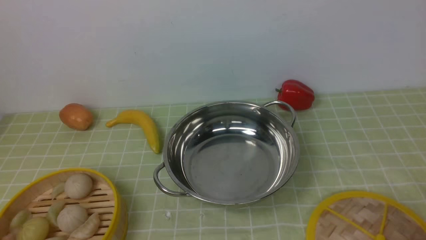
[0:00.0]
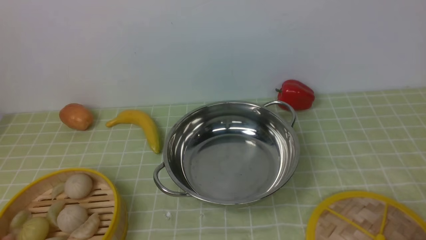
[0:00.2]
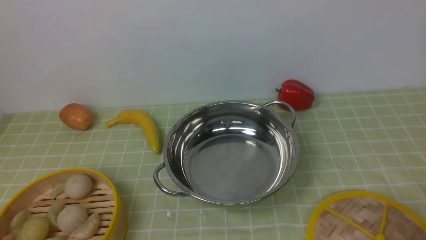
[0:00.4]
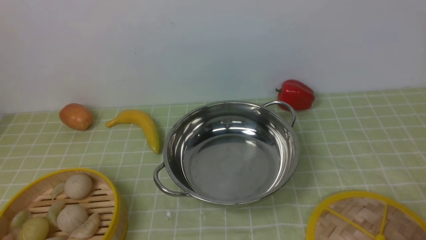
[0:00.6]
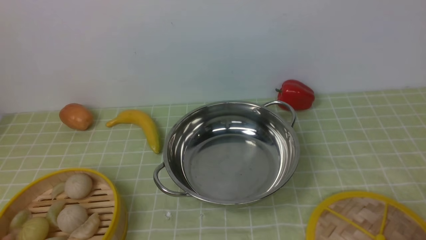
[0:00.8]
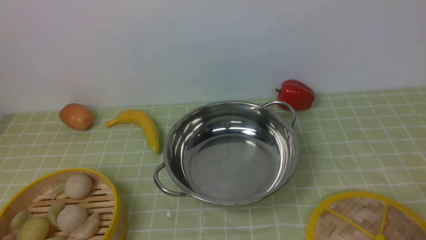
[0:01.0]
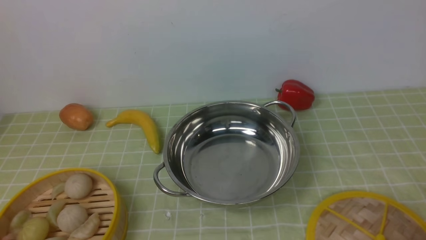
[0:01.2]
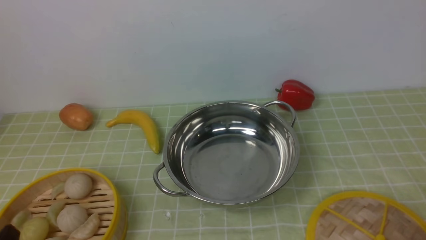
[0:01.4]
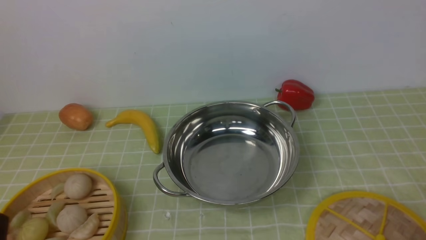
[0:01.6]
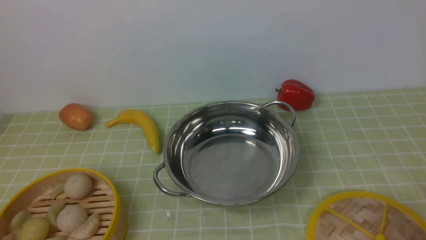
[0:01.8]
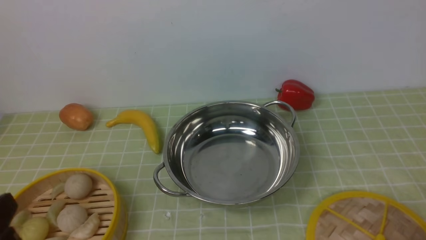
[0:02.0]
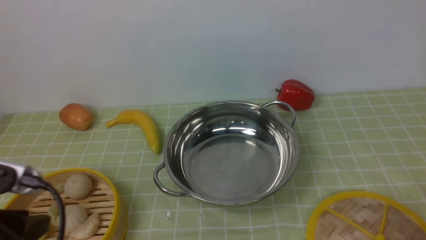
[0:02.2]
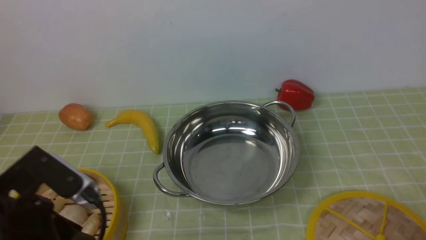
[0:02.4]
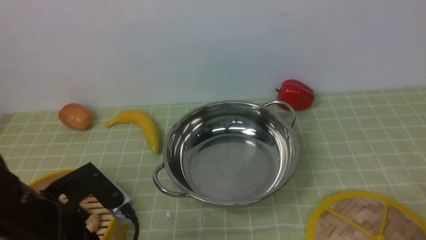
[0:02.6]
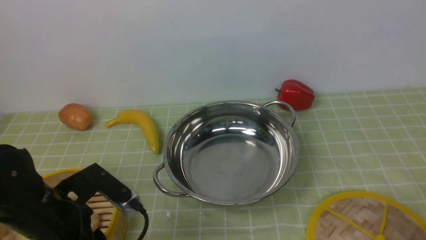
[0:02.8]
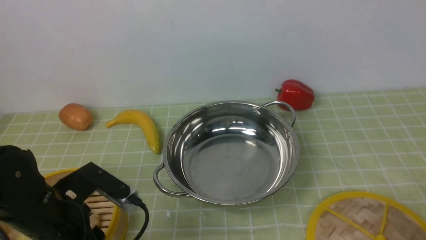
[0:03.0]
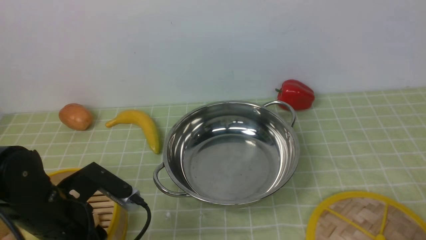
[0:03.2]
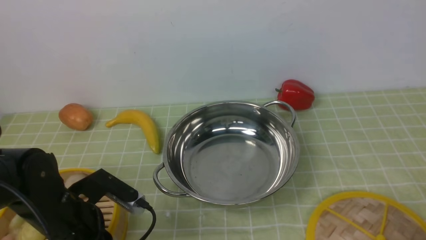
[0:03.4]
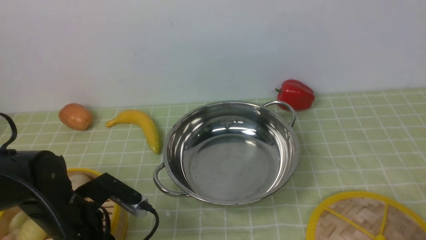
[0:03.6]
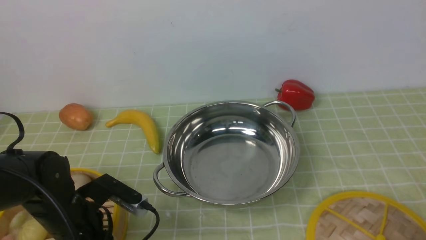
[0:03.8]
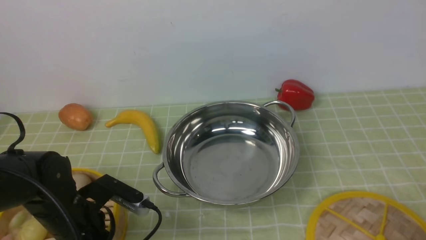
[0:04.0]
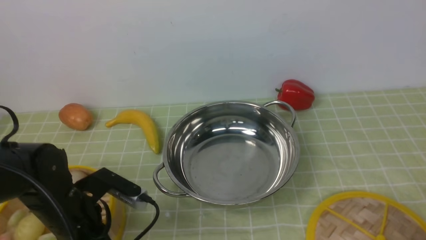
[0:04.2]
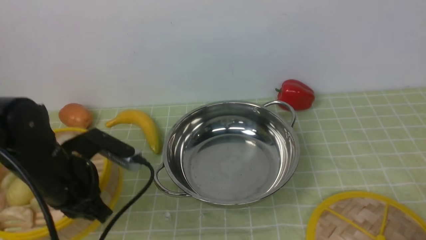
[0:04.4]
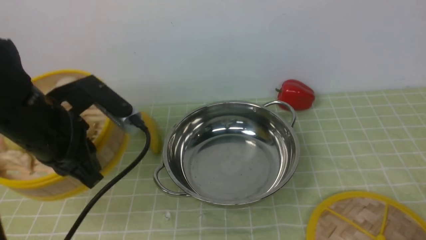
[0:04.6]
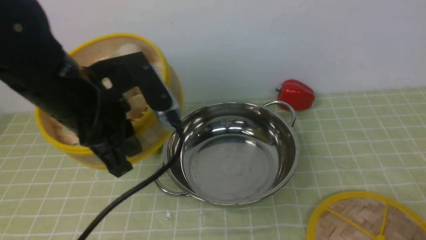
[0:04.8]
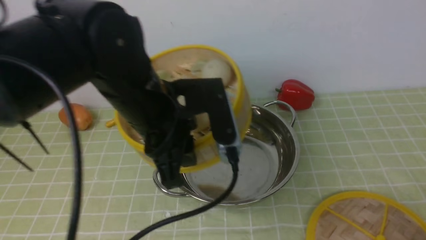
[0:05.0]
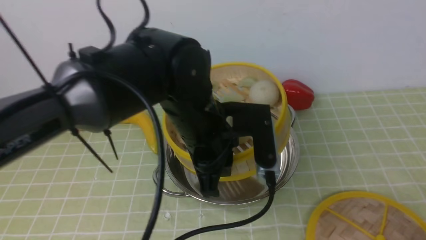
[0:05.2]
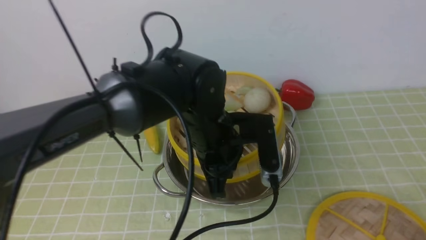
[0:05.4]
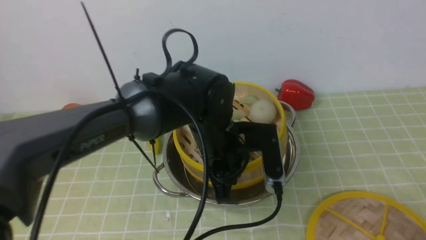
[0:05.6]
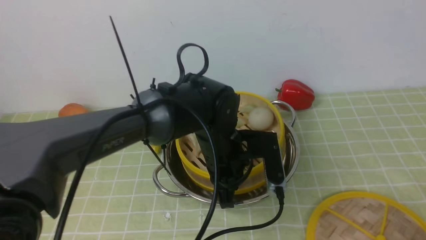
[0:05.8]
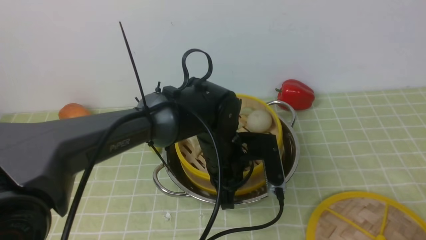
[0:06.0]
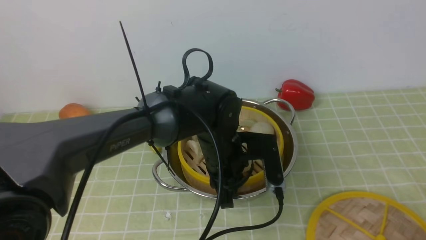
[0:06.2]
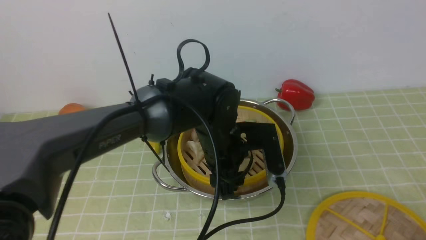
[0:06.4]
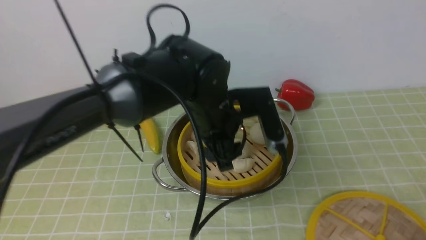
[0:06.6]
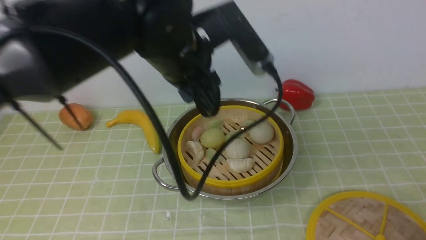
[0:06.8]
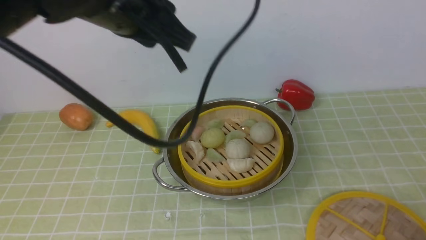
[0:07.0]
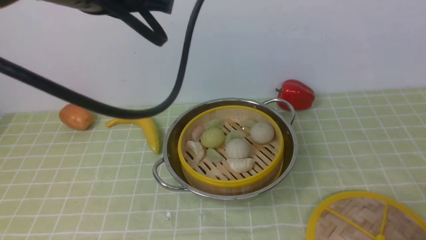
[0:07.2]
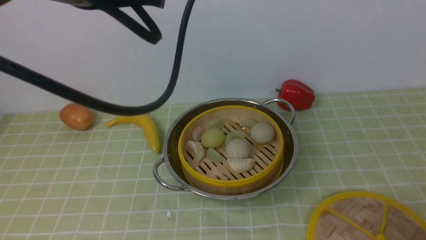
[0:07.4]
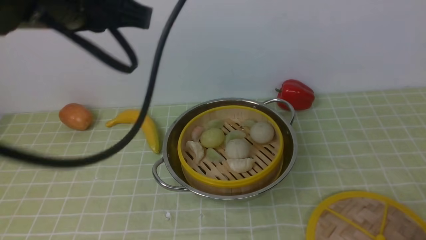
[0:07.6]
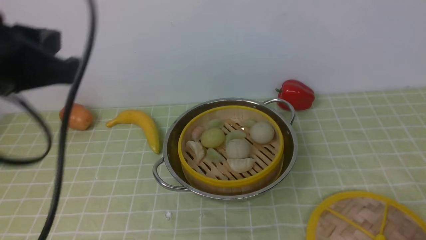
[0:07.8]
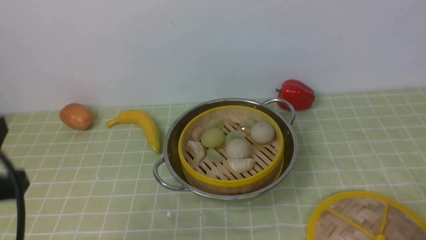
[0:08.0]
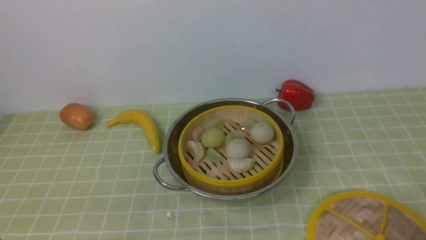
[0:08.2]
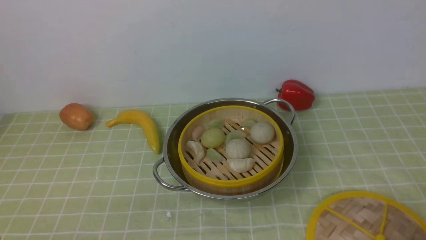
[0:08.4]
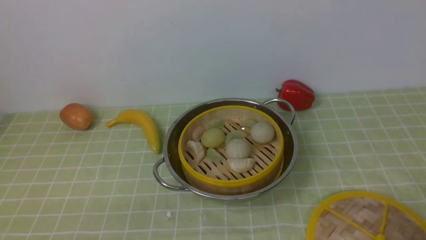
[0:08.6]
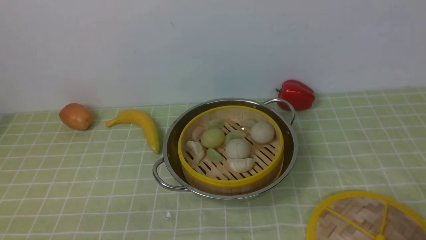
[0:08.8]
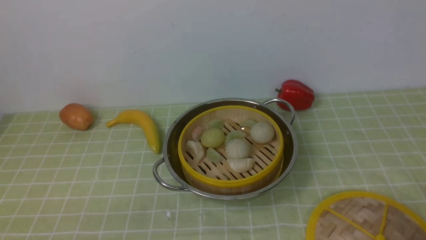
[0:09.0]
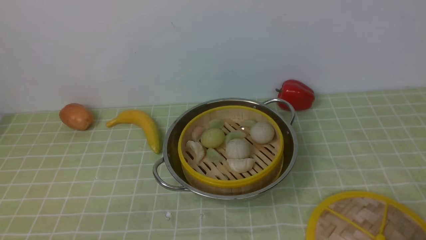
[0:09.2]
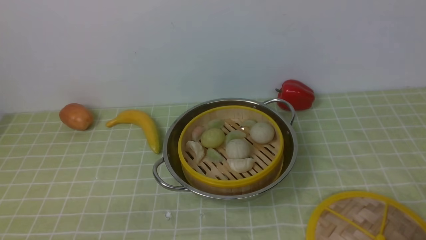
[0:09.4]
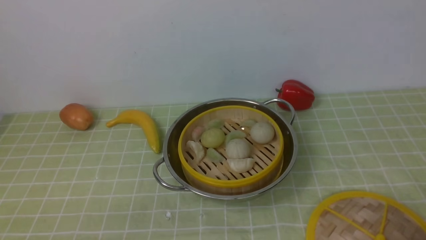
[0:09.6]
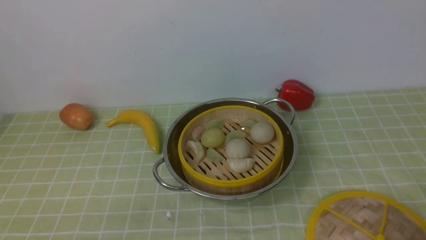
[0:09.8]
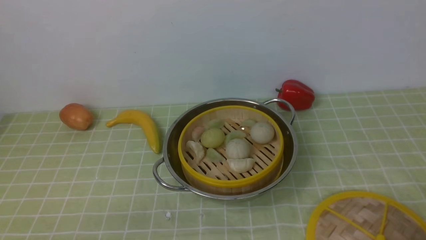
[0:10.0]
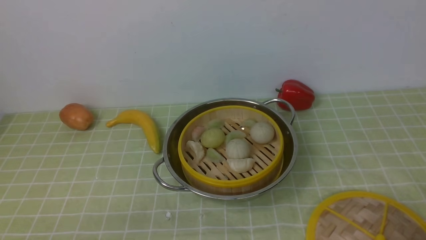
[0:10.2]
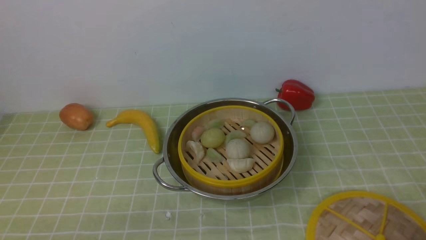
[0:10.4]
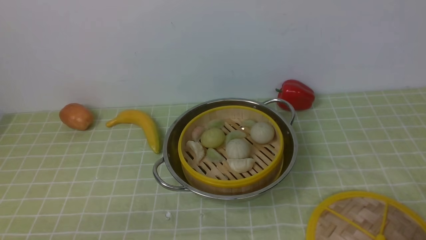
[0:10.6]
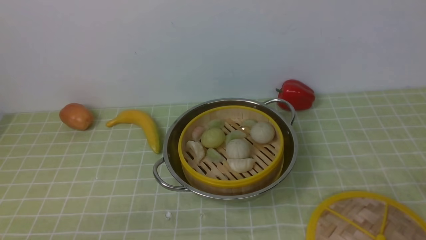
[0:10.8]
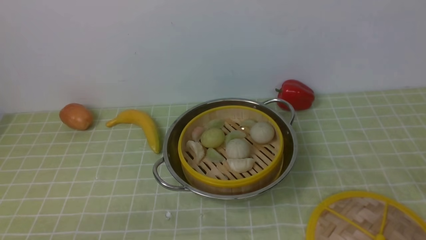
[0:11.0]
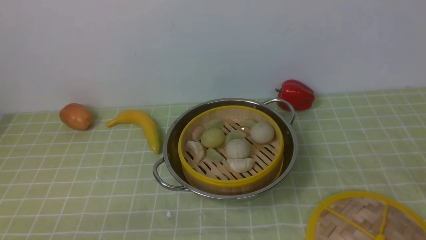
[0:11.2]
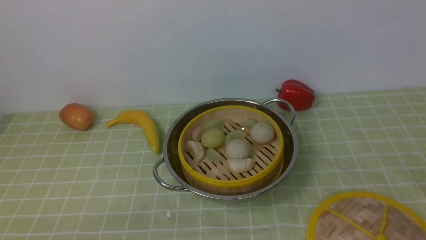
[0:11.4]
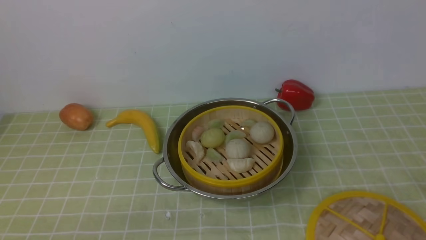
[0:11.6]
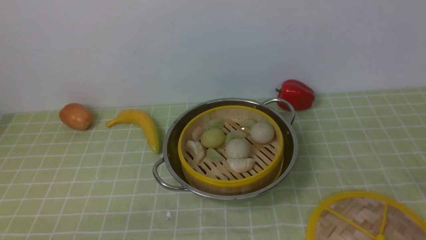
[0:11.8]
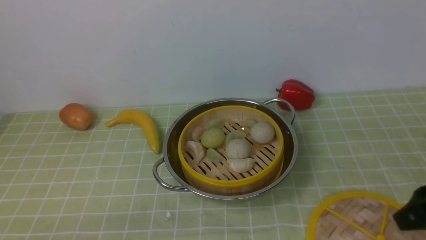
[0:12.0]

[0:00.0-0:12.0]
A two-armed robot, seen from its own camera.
Task of the whole recording: place the steamer in the pot on the green tablecloth, and put the lid on the steamer.
Step, 0:00.0 to 0:04.6: use the left arm to lift the steamer closest to it.
Step, 0:05.0 to 0:06.8: use the left arm to put the steamer into the iron steamer pot in the middle.
0:01.6 to 0:03.0: The left gripper moves forward, some 15 cm.
0:03.0 to 0:04.4: The left gripper moves approximately 5 cm, and closes up.
0:04.4 to 0:06.0: The left gripper travels to the right by approximately 20 cm.
0:06.0 to 0:07.6: The left gripper shifts some 30 cm upward and to the left, and opens, then closes again.
0:07.6 to 0:09.0: The left gripper travels downward, backward and to the left by roughly 35 cm.
0:10.4 to 0:12.0: The right gripper heads forward and upward, covering approximately 15 cm.

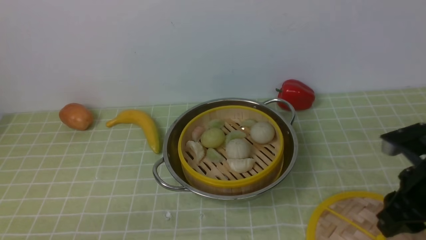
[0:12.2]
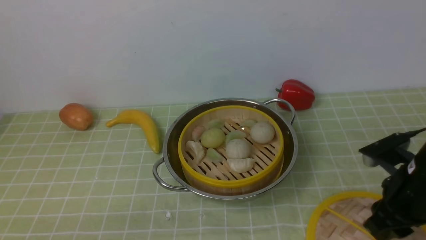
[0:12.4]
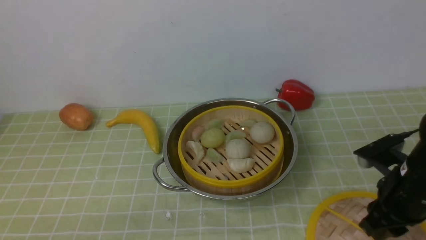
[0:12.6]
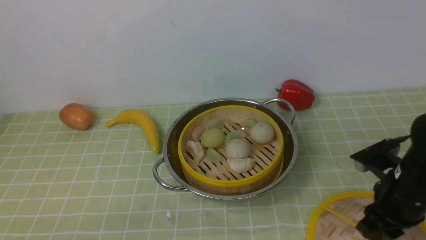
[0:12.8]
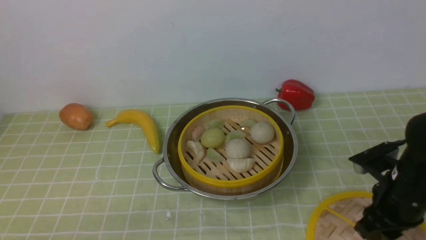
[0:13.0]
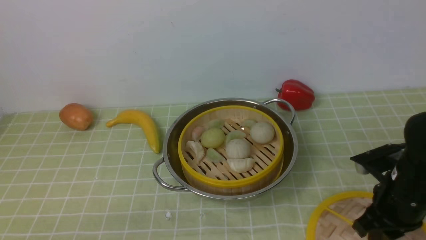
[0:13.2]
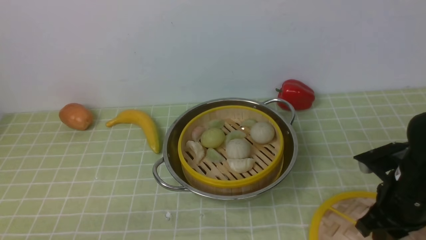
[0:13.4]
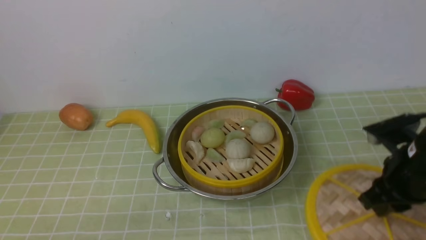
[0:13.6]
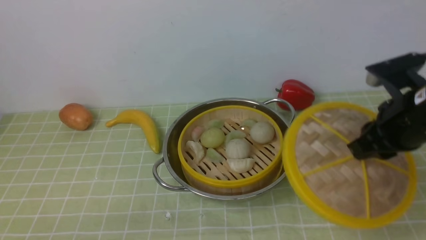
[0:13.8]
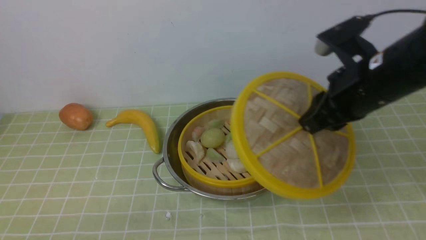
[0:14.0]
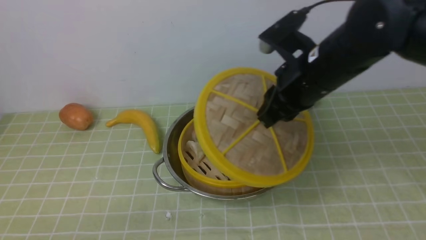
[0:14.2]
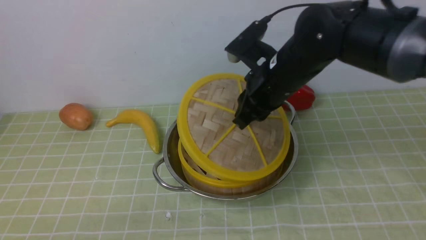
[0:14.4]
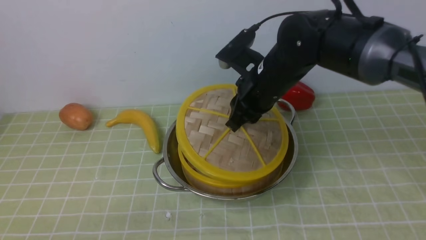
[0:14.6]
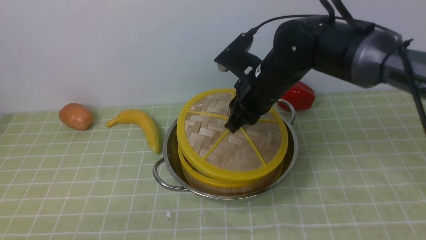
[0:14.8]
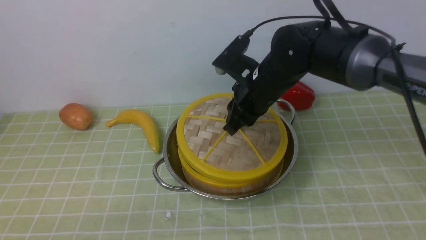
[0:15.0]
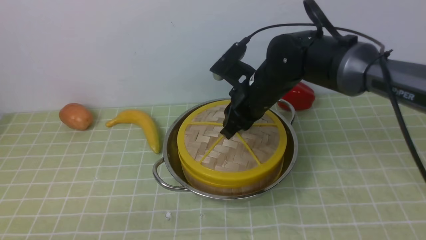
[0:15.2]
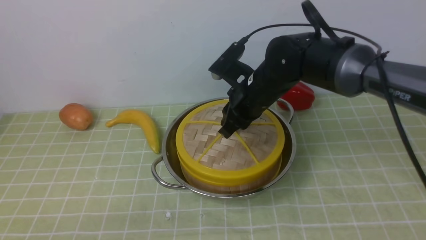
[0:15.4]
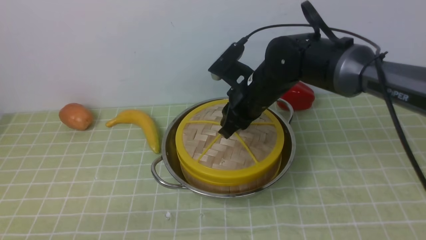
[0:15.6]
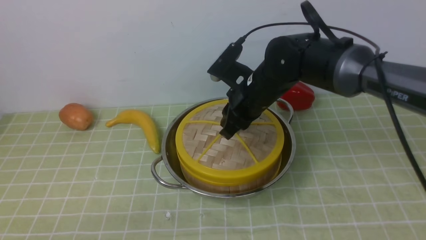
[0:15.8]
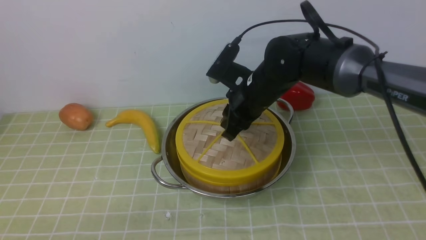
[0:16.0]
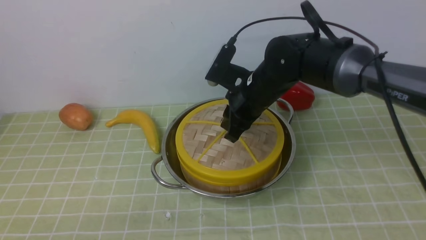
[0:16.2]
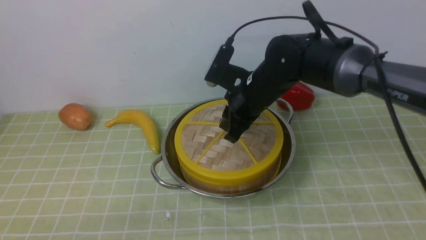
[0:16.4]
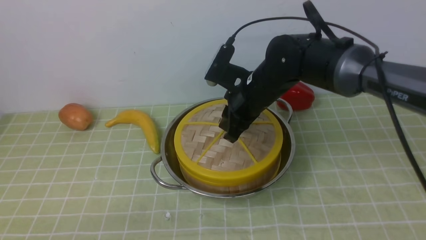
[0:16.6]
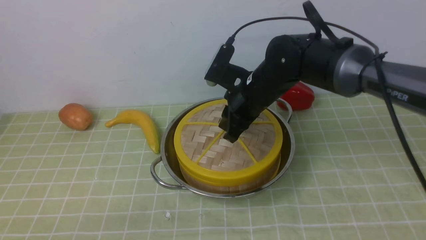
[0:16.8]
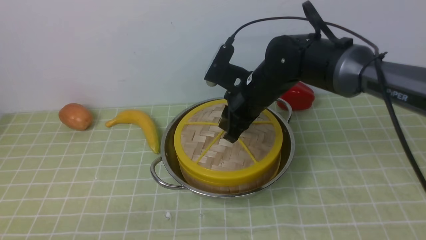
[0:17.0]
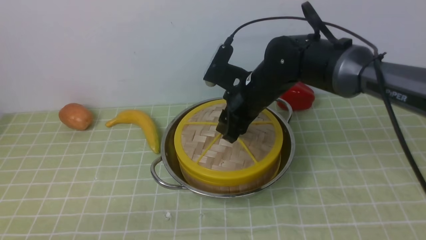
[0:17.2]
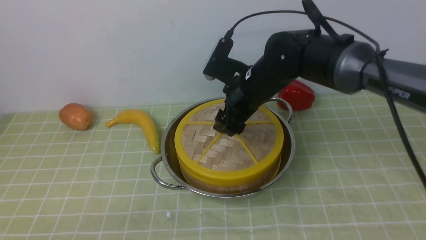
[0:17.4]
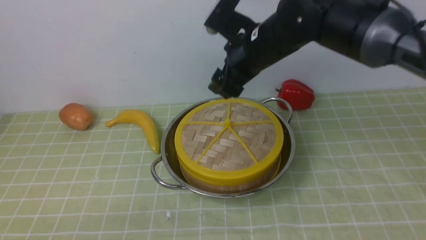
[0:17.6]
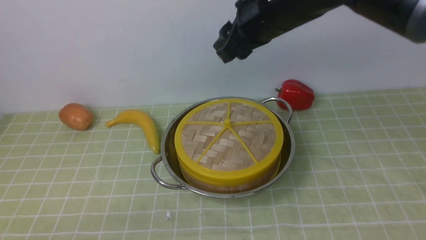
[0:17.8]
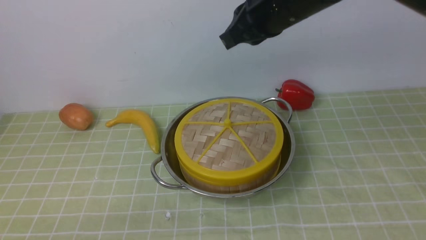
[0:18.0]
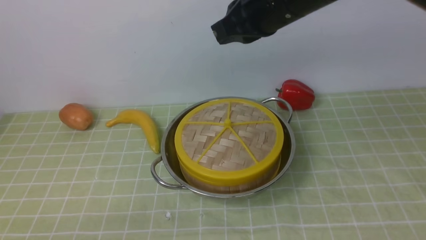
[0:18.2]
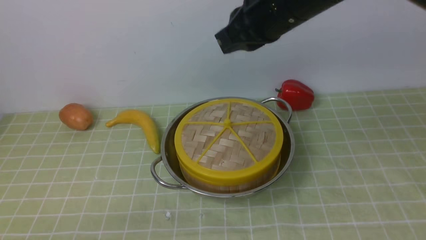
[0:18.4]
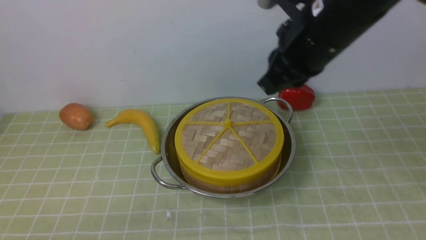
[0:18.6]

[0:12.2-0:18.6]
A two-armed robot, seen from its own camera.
Task of the whole recording: place the steamer in the pot on the green tablecloth, and put the lid on the steamer.
Step, 0:14.2 to 0:17.8: use the right arm to place the steamer lid on the steamer.
0:12.2 to 0:13.8: The right gripper travels upward and forward by approximately 10 cm.
0:13.8 to 0:15.4: The right gripper travels to the left and forward by some 20 cm.
0:15.4 to 0:17.0: There are only small adjustments of the grippers.
0:17.0 to 0:18.6: The right gripper travels upward, backward and to the right by roughly 20 cm, and closes its fingers.
